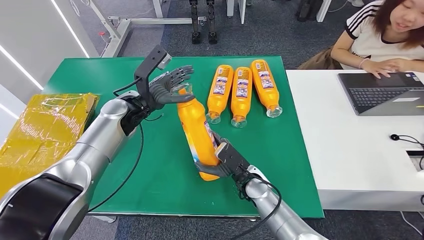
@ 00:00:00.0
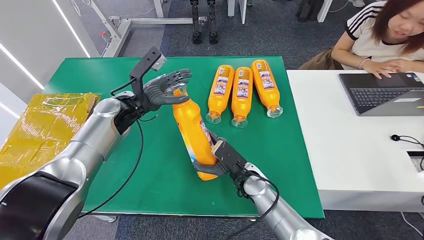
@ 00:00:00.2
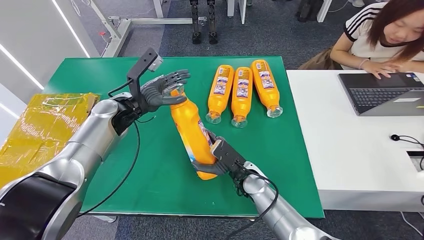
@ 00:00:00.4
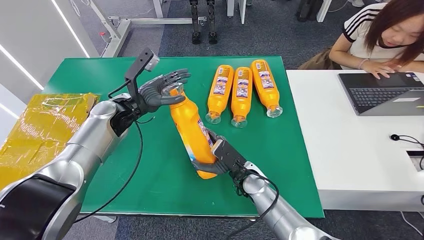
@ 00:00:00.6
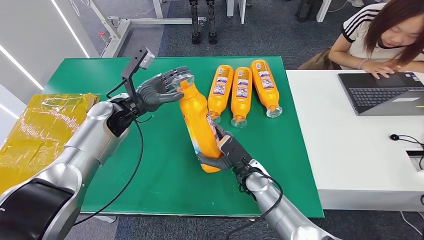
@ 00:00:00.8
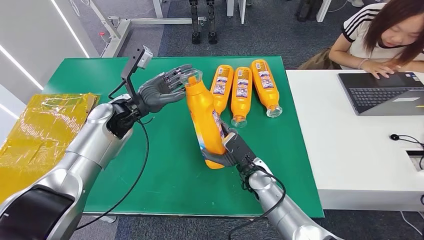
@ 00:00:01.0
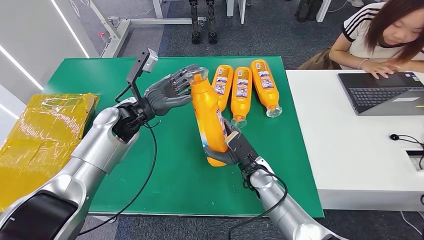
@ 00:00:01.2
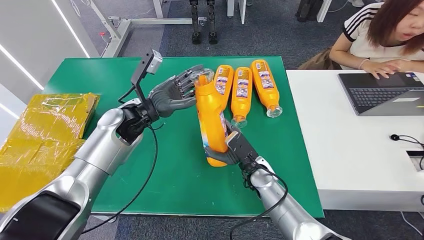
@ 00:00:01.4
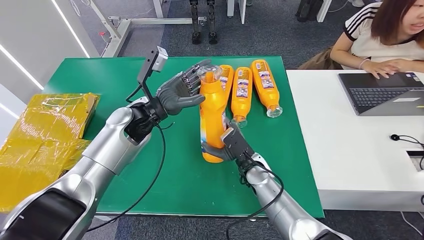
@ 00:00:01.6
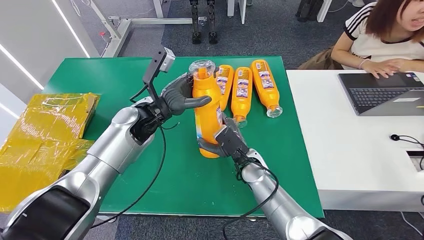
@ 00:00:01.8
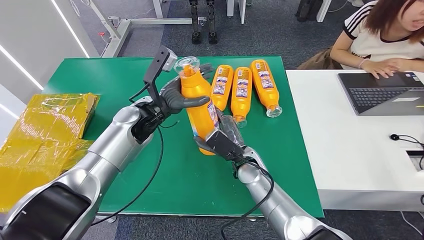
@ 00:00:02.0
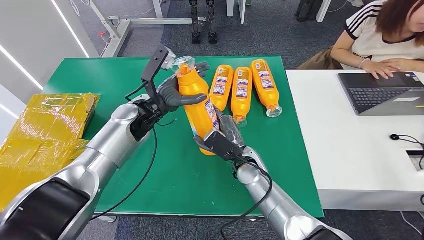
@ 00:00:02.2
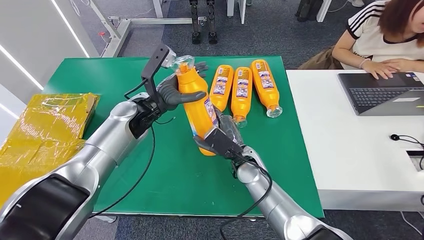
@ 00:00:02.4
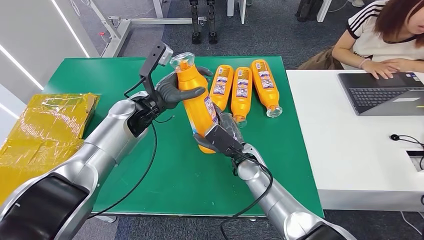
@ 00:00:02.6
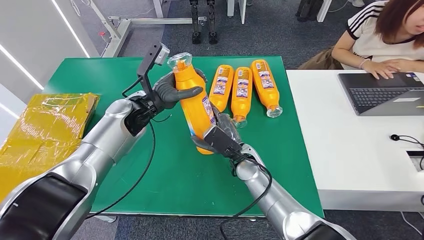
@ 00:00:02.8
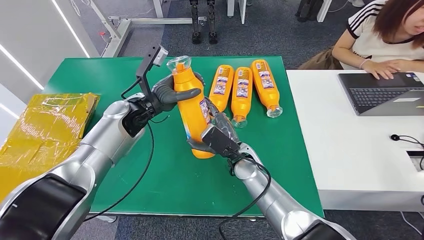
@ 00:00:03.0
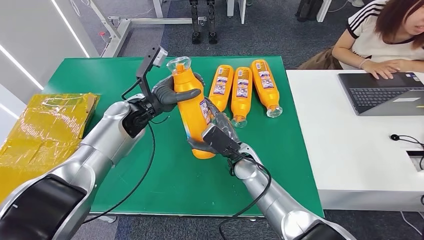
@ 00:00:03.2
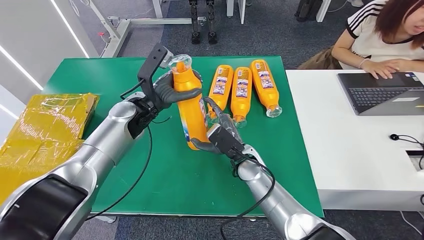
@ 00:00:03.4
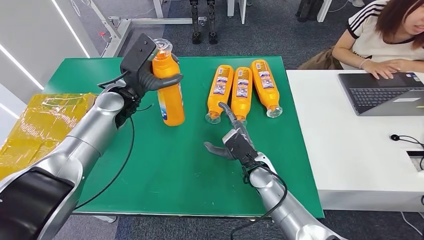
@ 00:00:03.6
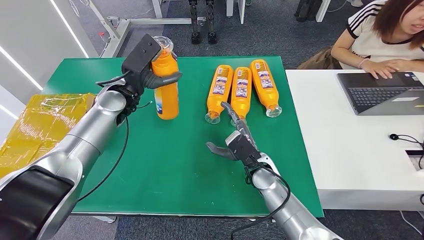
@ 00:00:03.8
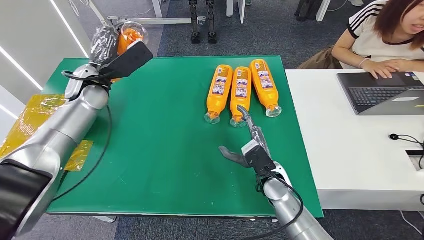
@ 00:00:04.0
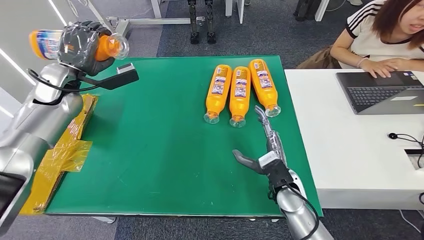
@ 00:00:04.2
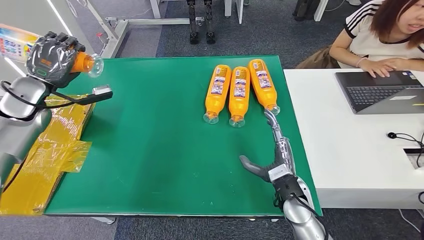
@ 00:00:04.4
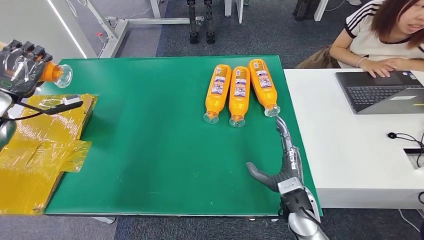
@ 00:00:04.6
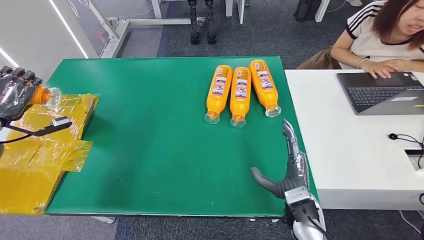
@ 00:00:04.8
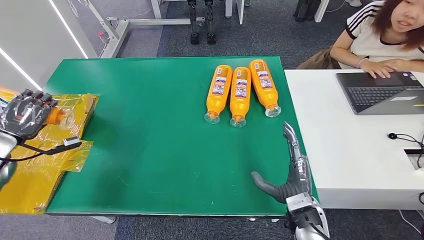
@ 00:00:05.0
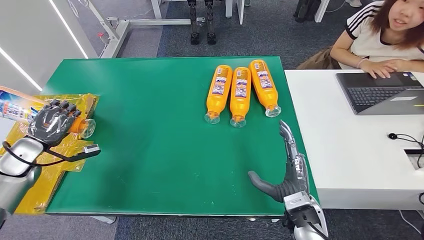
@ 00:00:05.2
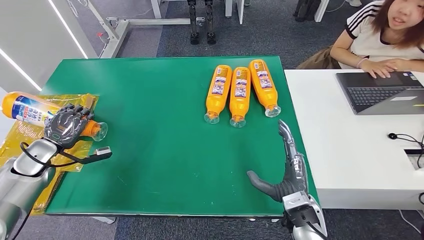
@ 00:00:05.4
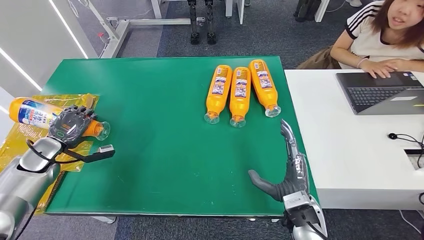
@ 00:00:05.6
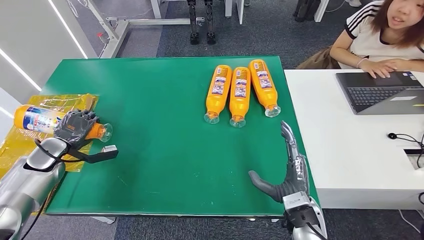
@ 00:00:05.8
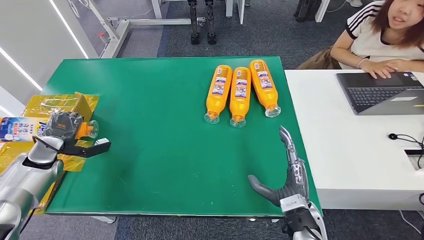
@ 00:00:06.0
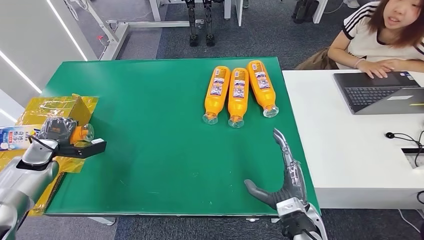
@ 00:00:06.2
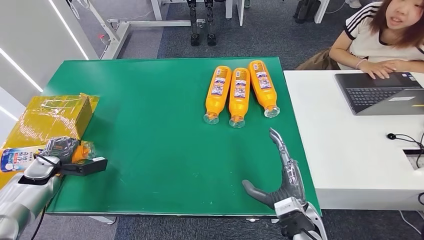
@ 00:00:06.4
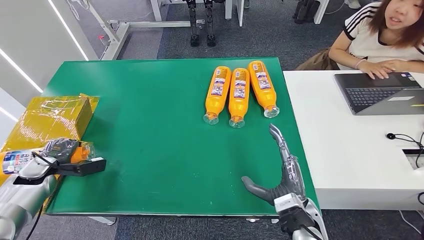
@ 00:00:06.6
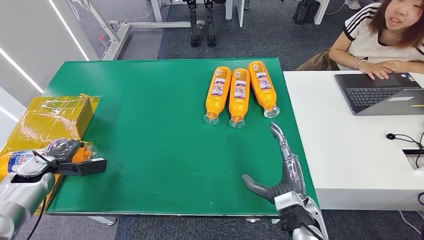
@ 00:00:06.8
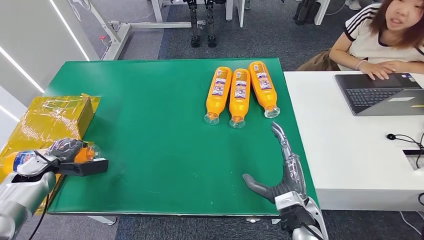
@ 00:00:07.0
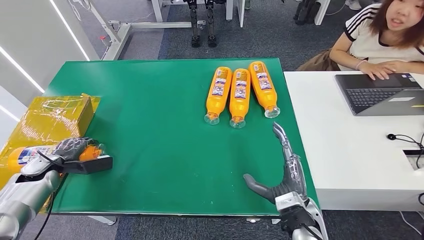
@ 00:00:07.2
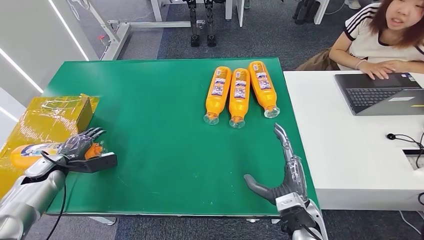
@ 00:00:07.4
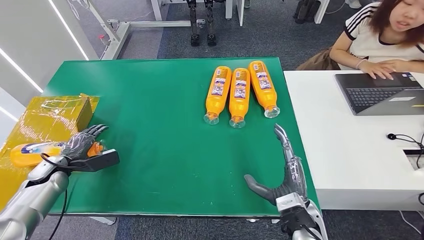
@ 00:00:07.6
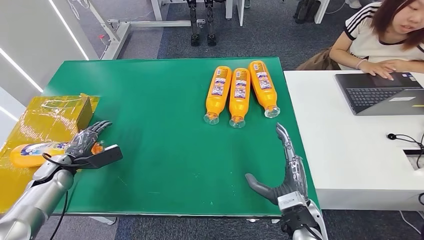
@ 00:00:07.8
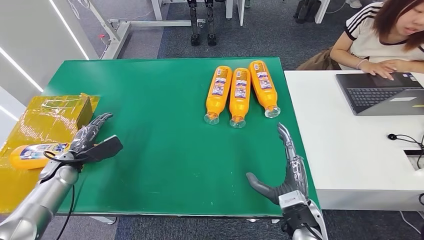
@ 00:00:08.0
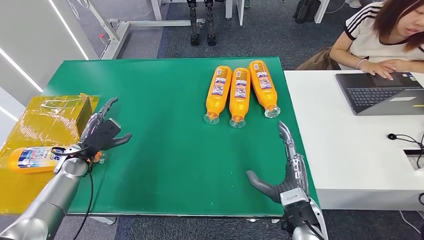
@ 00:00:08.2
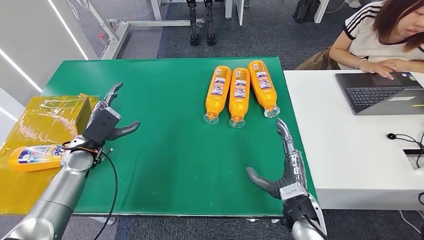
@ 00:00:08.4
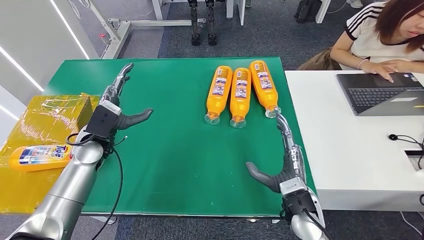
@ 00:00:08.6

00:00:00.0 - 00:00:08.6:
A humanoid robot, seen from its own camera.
Step, 00:00:00.0 - 00:00:08.6: Turn the bottle to the front side.
00:00:01.4 - 00:00:02.8: The right hand ends up approximately 5 cm from where it was.
00:00:04.4 - 00:00:05.8: The left hand goes roughly 20 cm downward and backward, while the right hand is displaced backward by some 5 cm.
00:00:05.8 - 00:00:07.2: The left hand shifts by roughly 5 cm.
00:00:07.2 - 00:00:08.6: The left hand heads to the right and upward, covering about 20 cm.
